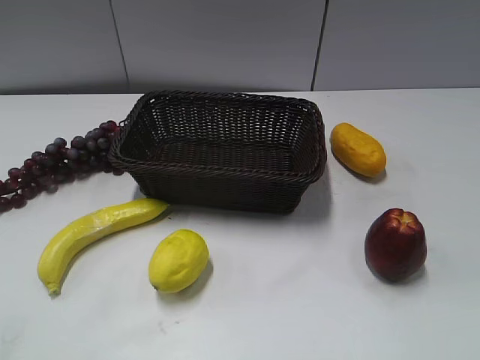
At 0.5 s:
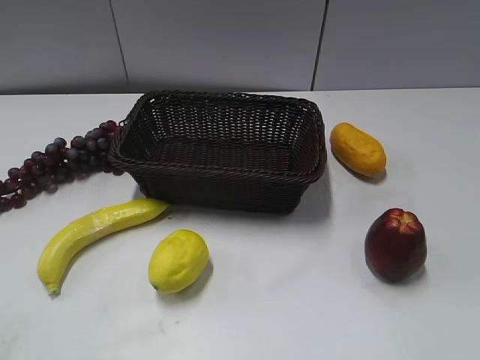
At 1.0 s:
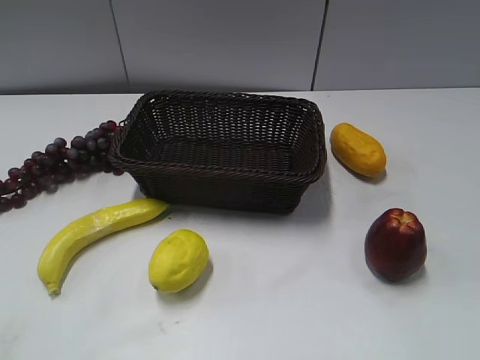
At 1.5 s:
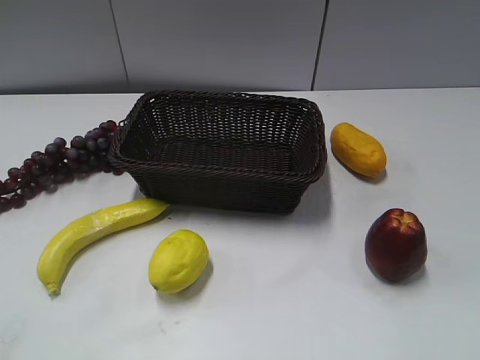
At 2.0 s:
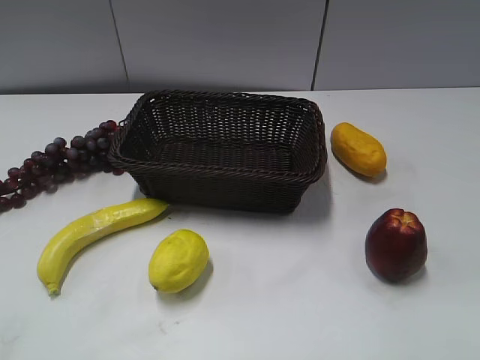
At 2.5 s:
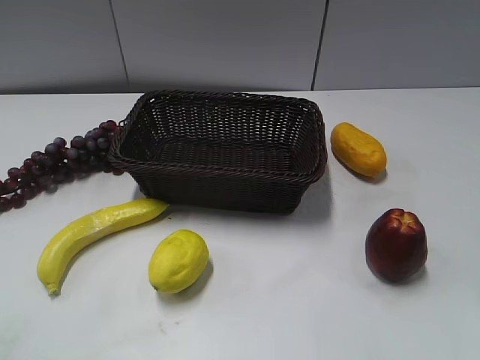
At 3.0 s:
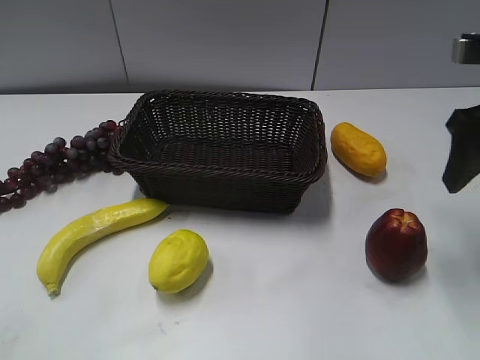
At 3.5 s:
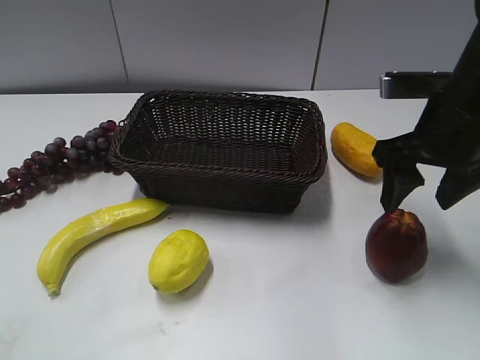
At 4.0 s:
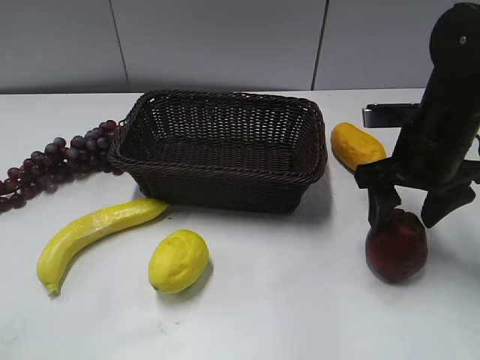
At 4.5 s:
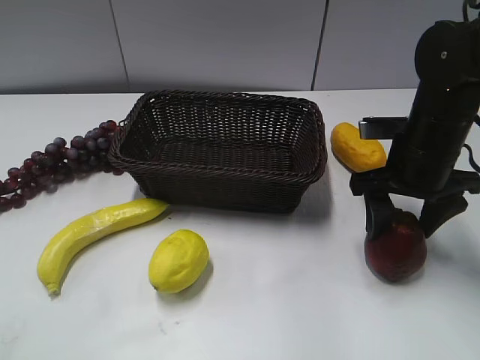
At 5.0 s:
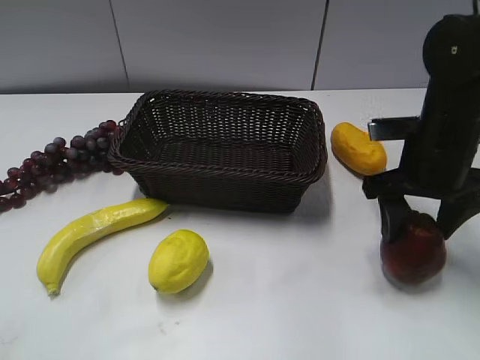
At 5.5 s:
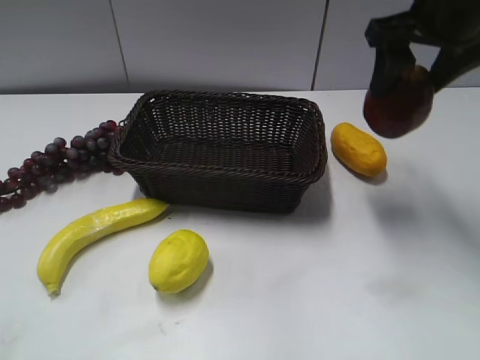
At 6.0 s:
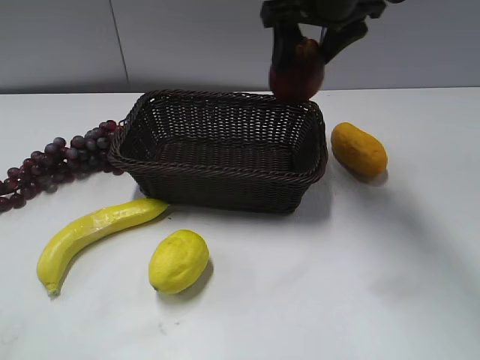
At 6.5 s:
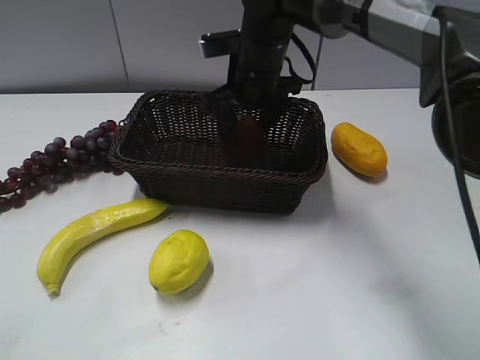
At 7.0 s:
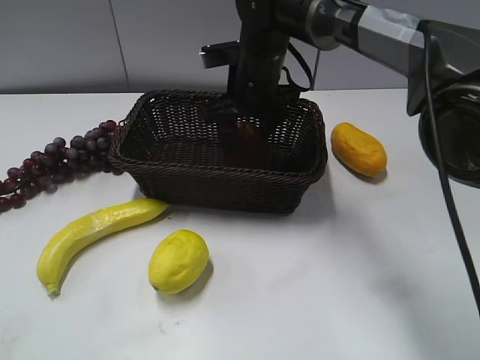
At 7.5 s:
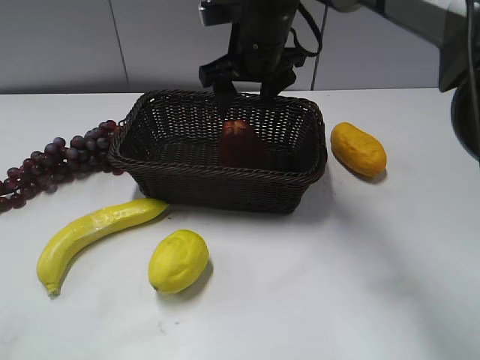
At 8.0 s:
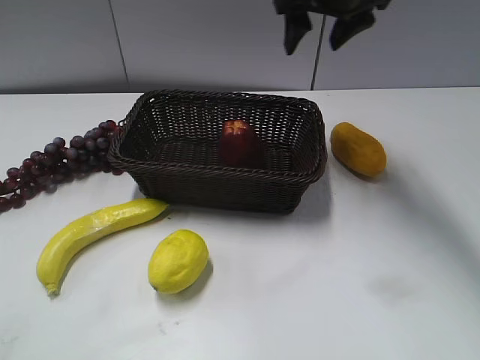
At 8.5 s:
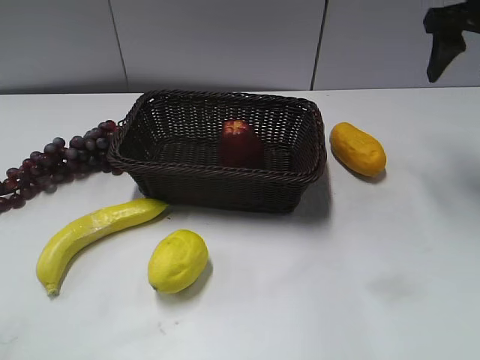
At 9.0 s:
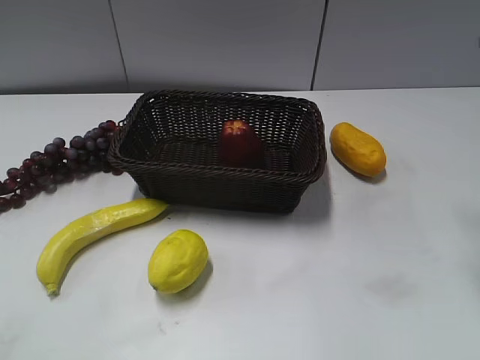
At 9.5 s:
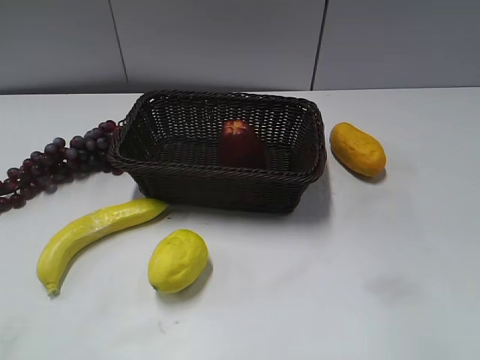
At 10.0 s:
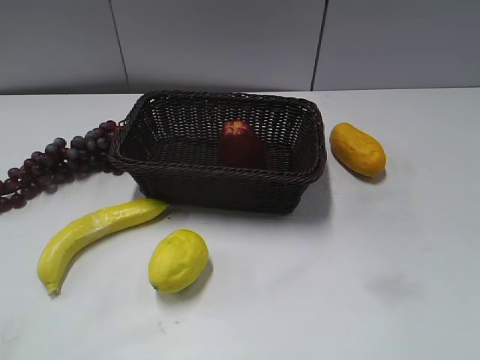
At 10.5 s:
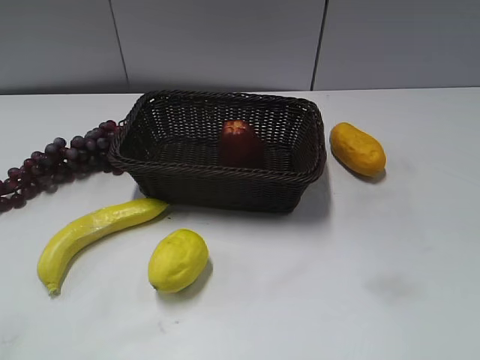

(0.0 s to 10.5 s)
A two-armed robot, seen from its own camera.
Step, 3.0 s - 4.0 s: Grasp the apple with right gripper.
Step, 4.5 s - 6.5 s: Place the apple in the basket with right gripper.
2.0 s - 4.0 s: The right gripper heads forward, downward and to the left, covering about 25 cm.
4.0 s - 6.5 s: The right gripper goes some 20 cm to the left and forward.
6.5 s - 8.5 s: The right gripper heads to the right and upward, covering about 30 cm.
8.5 s - 10.5 s: The right gripper shifts roughly 40 cm backward.

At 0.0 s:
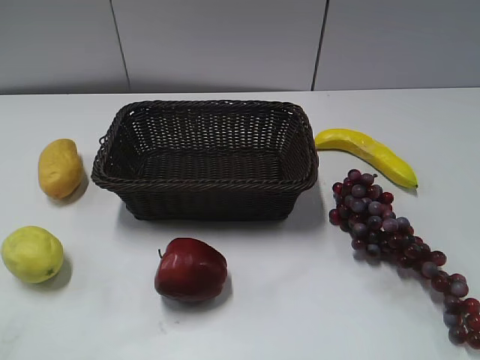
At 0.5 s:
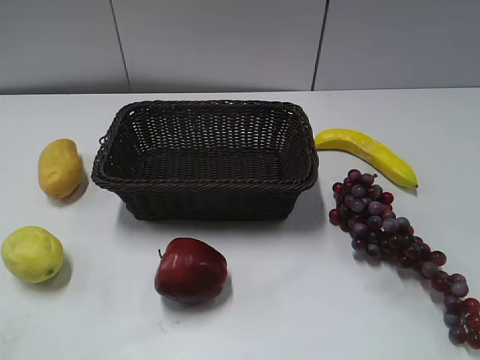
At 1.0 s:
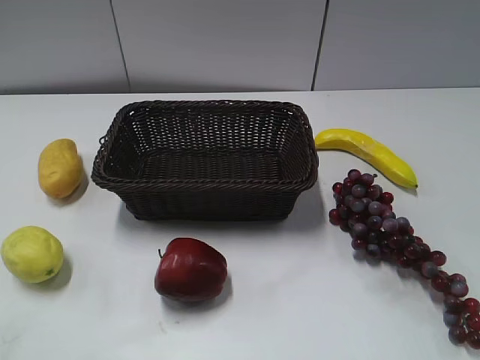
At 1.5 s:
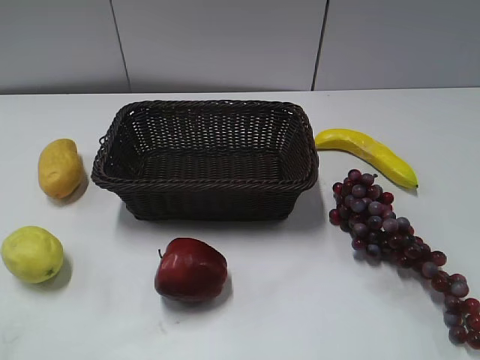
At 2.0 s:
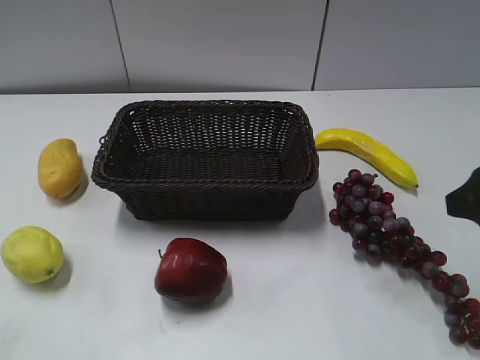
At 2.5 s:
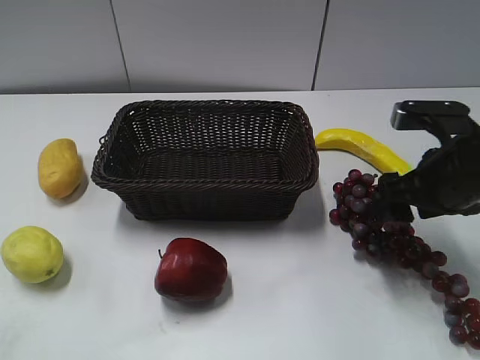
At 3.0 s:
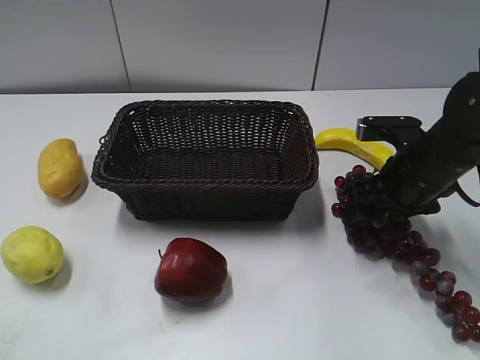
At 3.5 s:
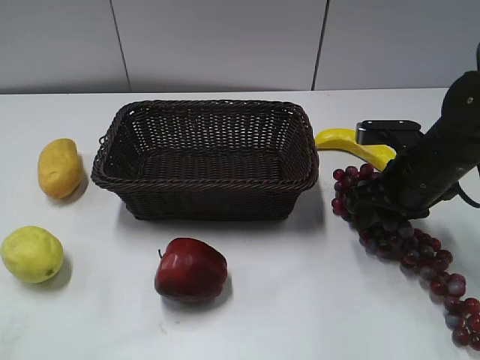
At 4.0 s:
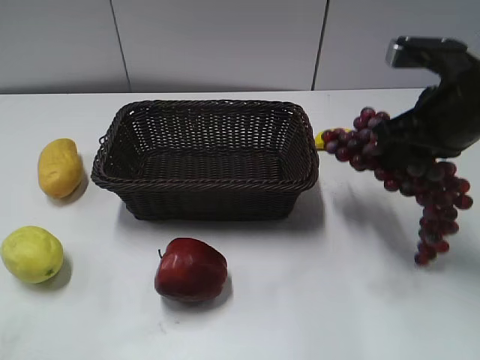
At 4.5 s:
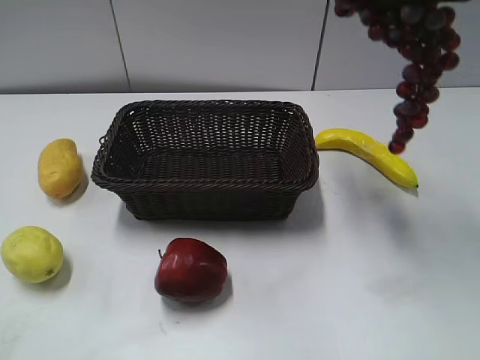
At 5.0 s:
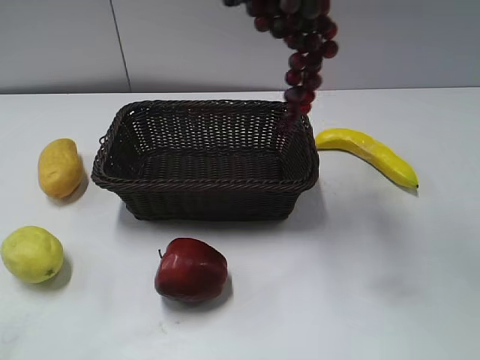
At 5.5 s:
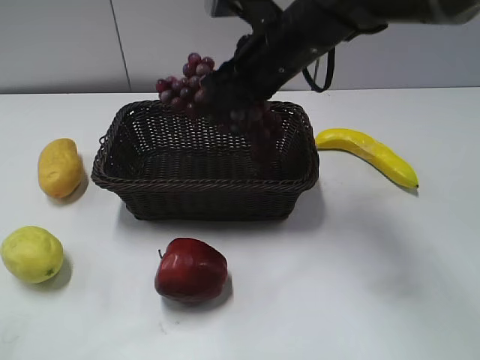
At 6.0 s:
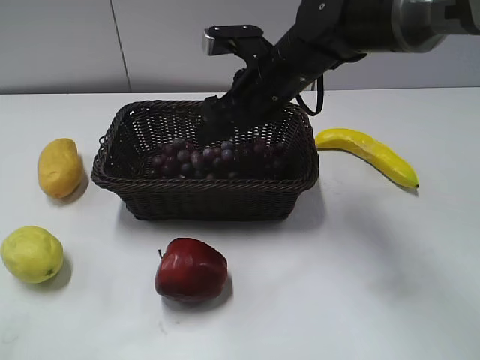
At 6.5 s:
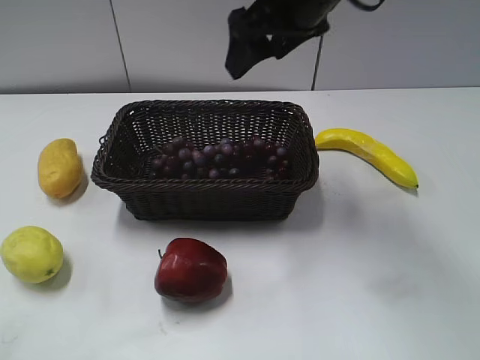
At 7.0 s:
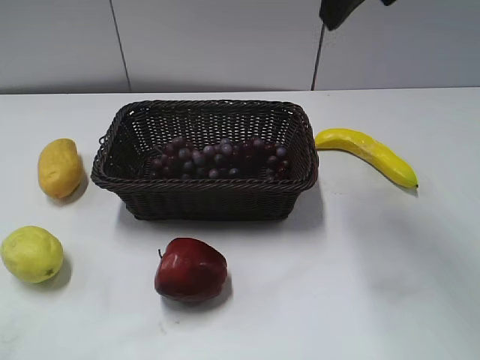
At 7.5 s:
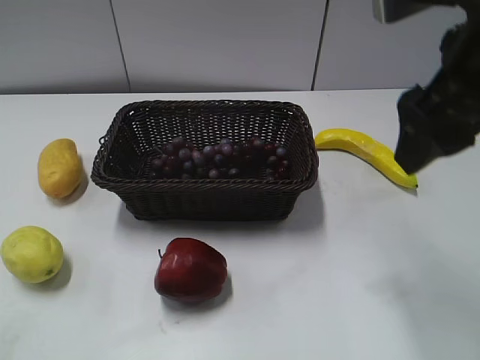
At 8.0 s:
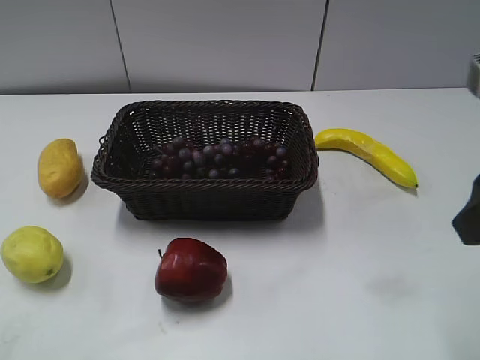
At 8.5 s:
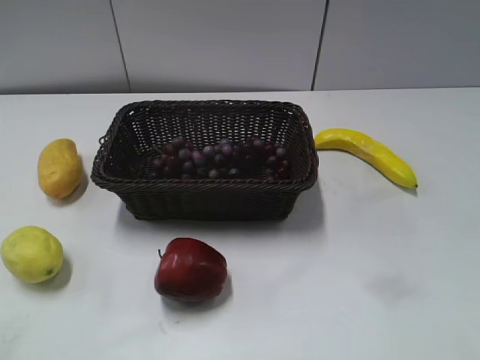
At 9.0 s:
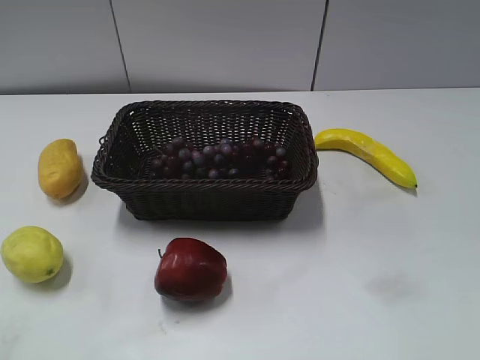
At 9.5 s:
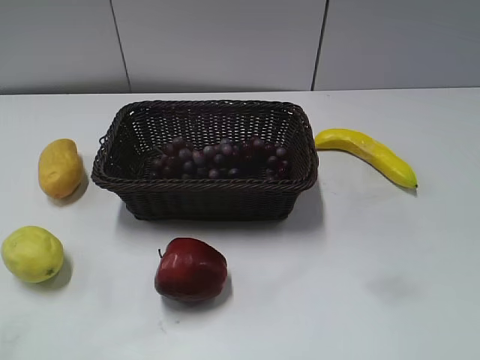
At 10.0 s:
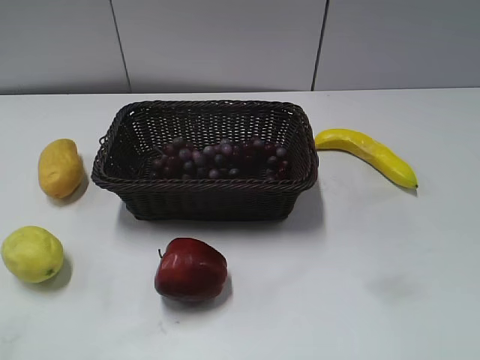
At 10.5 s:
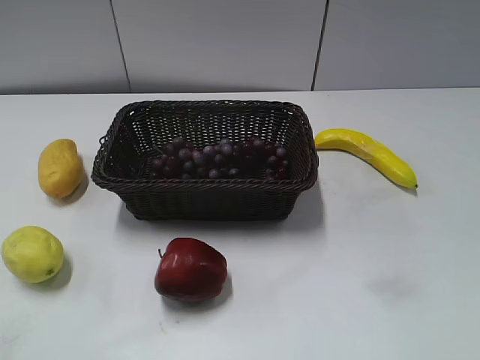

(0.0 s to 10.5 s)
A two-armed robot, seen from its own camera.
Step, 2.0 s - 3.5 s: Grasp the grape with right gripper.
Step, 4.0 s - 6.0 s: Place the grape in the basket with right gripper.
2.0 s - 4.0 s: The right gripper travels forward and to the left by some 10 cm, and closes.
4.0 s - 6.5 s: The right gripper goes up and down, some 20 cm each way, reversing 2 times, and opens up.
6.5 s - 8.5 s: The right gripper heads backward and to the right, covering roughly 35 cm.
